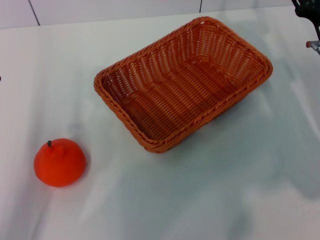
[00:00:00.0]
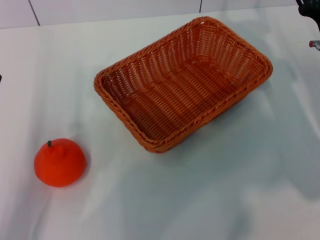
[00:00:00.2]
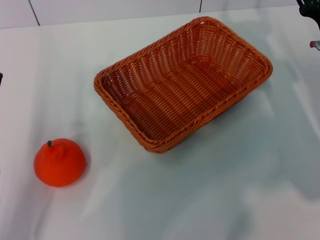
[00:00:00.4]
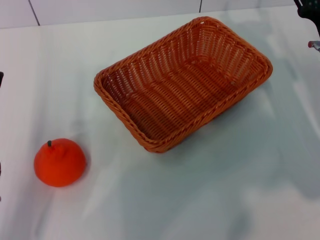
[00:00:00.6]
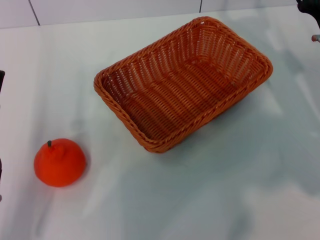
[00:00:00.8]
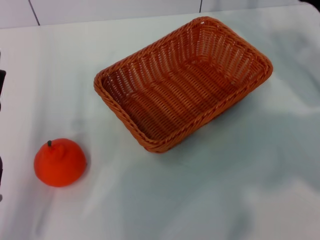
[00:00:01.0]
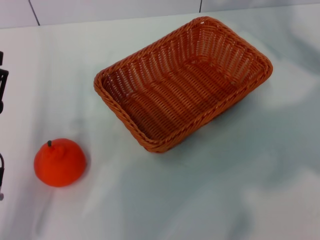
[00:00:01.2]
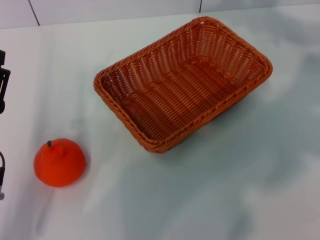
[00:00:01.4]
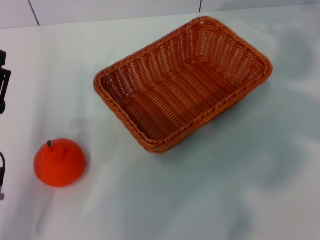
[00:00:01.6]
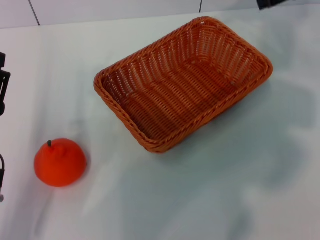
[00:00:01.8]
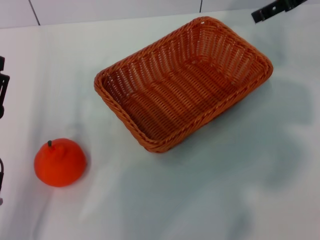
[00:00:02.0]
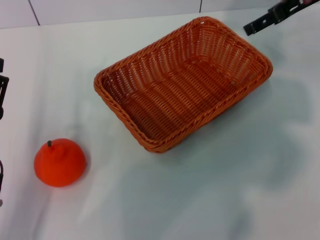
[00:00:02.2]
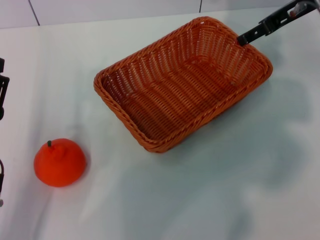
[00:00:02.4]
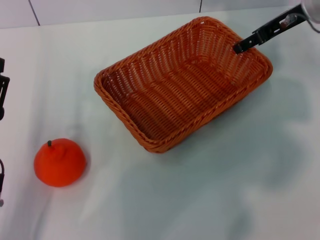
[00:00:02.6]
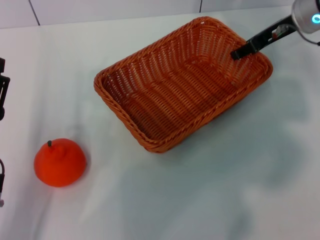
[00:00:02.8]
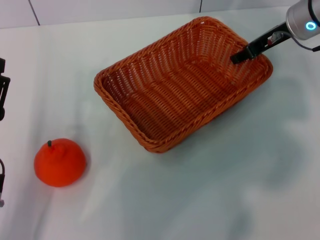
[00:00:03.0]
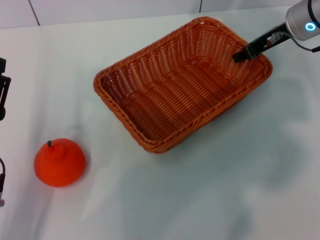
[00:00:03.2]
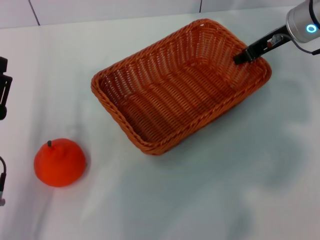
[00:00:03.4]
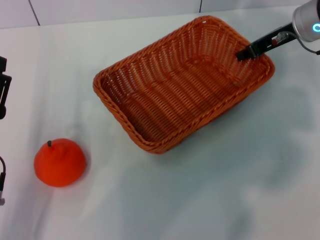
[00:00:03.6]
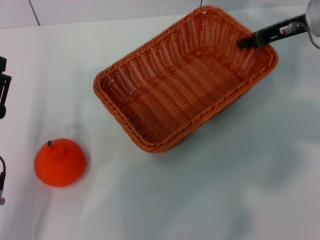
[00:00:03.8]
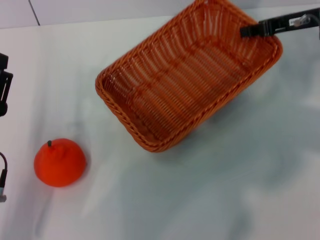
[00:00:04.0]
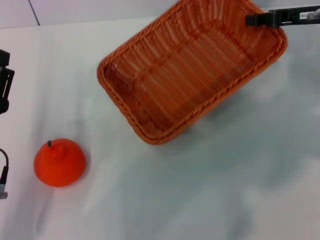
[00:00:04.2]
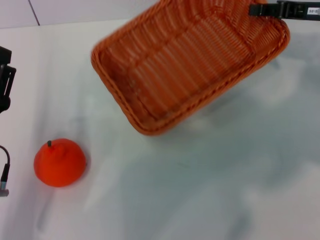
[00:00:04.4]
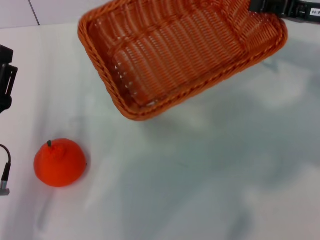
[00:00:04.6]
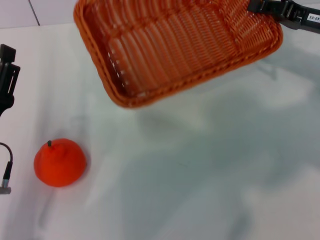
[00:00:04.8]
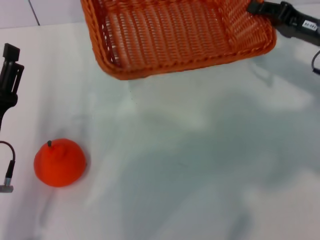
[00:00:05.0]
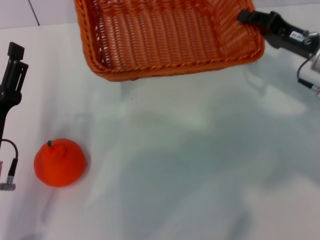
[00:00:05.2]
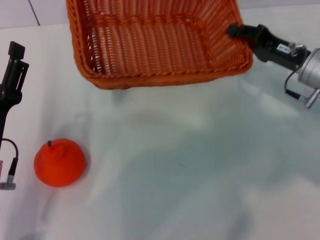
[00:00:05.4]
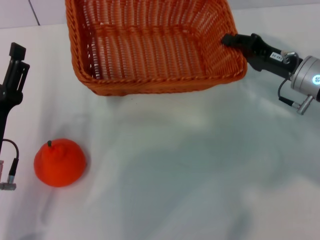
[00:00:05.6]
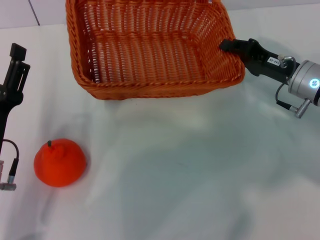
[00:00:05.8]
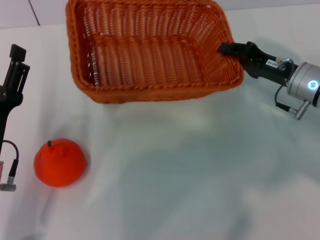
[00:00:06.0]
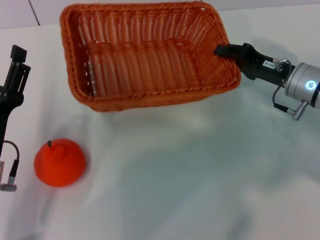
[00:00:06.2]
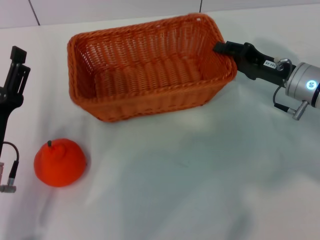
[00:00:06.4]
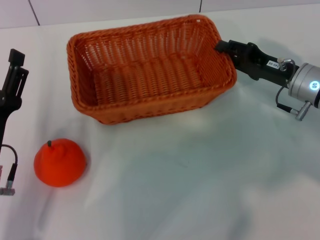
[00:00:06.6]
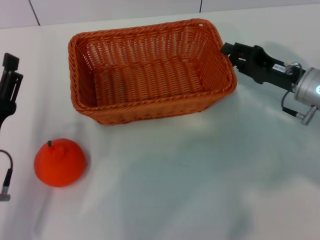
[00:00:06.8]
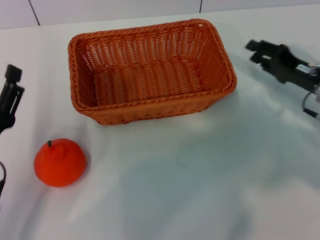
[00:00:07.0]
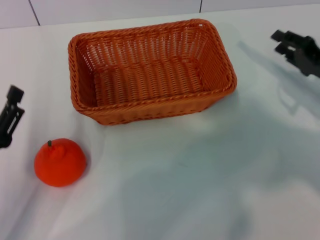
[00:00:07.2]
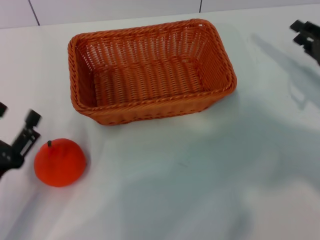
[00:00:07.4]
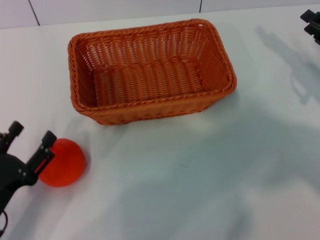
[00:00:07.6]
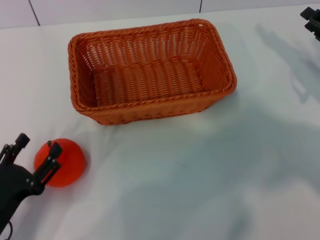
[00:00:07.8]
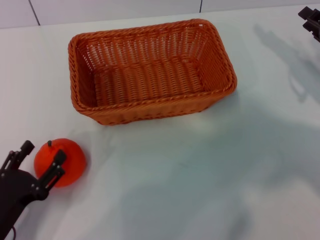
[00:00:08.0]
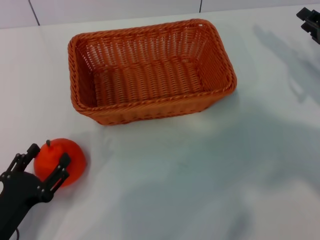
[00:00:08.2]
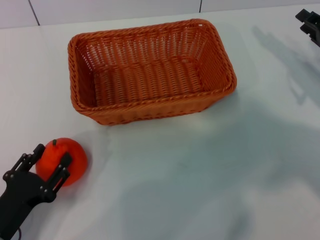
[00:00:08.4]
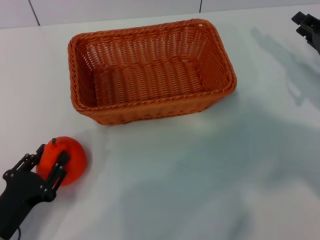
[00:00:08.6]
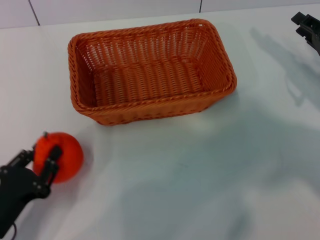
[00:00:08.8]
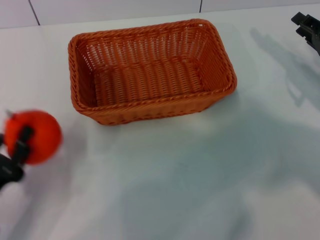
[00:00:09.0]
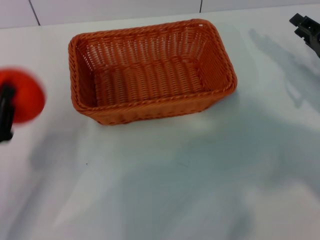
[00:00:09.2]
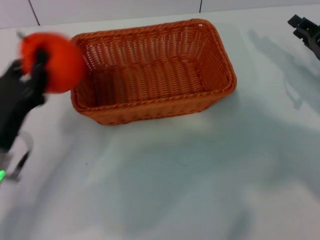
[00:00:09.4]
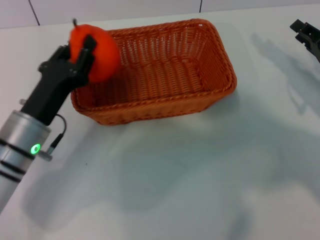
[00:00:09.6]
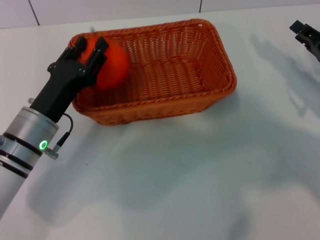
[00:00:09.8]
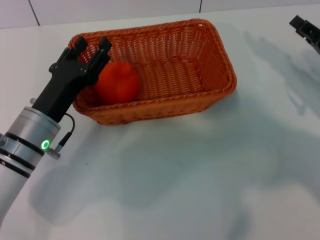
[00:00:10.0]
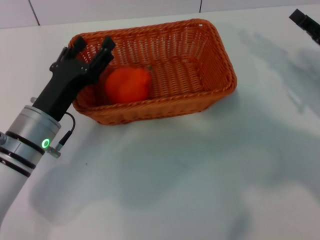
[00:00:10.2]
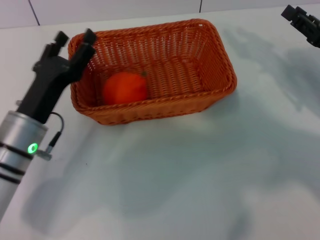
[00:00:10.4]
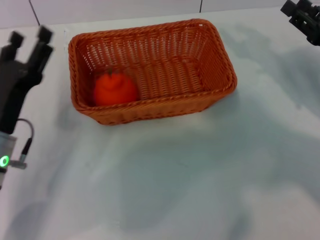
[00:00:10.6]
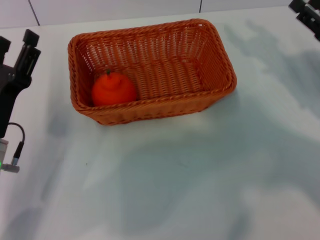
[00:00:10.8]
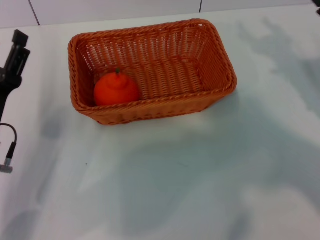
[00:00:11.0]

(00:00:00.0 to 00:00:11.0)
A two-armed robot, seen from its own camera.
Task of the whole recording: the right gripper pick up the yellow basket and place it horizontally in the middle of the table, the left gripper pick up the orange and place it into the yellow basket.
Step, 00:00:00.0 - 00:00:04.6: Pick up the light basket with the right gripper.
Step, 00:00:04.8 - 00:00:06.8: Place the light basket in the center of view with the right gripper.
Step, 00:00:07.0 - 00:00:09.0: Pick up the orange with the left gripper.
Step, 00:00:09.2 - 00:00:10.0: Place the orange into the light basket with the left gripper.
00:00:00.0 - 00:00:01.6: The right gripper goes about 20 cm upward and forward.
00:00:01.6 - 00:00:03.2: The right gripper heads downward and to the left, covering about 10 cm, and closes.
00:00:03.2 - 00:00:04.8: The right gripper travels to the right and backward by some 10 cm.
00:00:04.8 - 00:00:06.2: The right gripper shifts roughly 10 cm downward and to the left.
00:00:06.2 - 00:00:07.8: The left gripper heads backward, covering about 5 cm. Meanwhile the right gripper shifts some 10 cm to the right, and opens.
00:00:07.8 - 00:00:09.4: The left gripper goes some 10 cm forward and upward, and closes up.
00:00:09.4 - 00:00:11.0: The right gripper opens up; the left gripper opens up.
